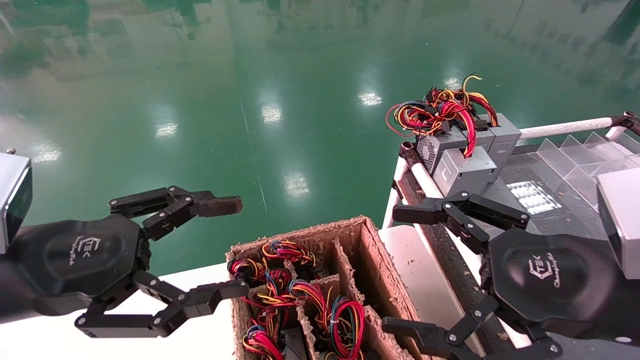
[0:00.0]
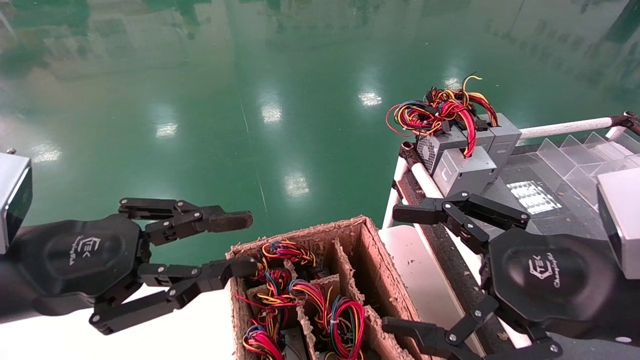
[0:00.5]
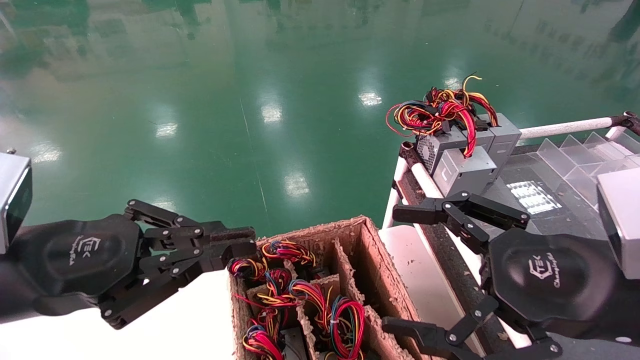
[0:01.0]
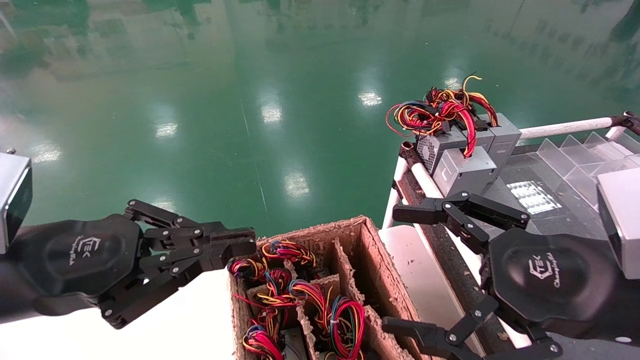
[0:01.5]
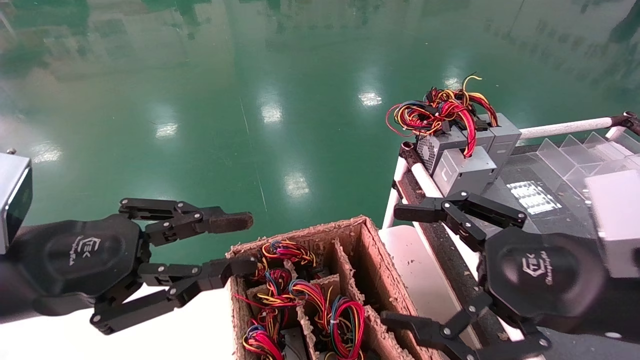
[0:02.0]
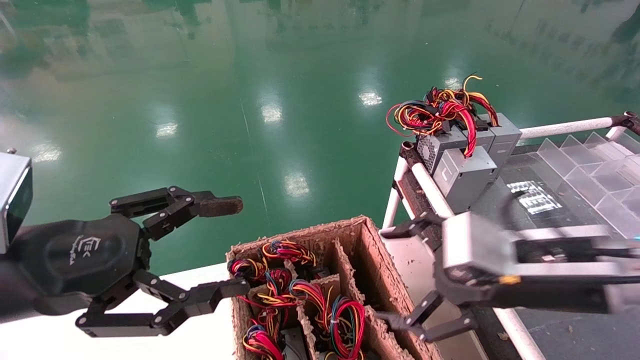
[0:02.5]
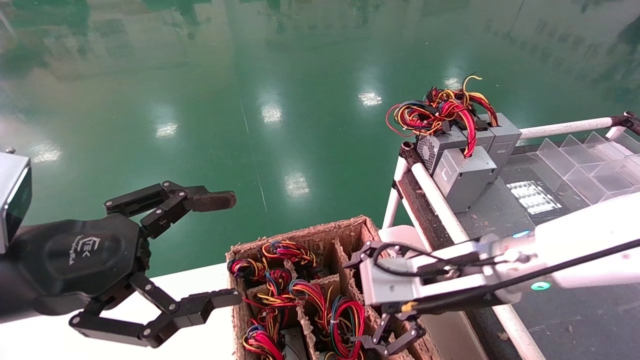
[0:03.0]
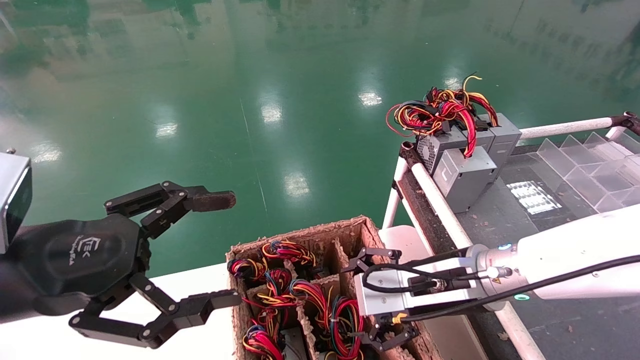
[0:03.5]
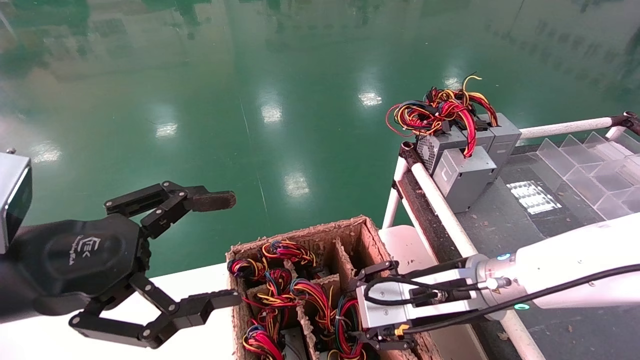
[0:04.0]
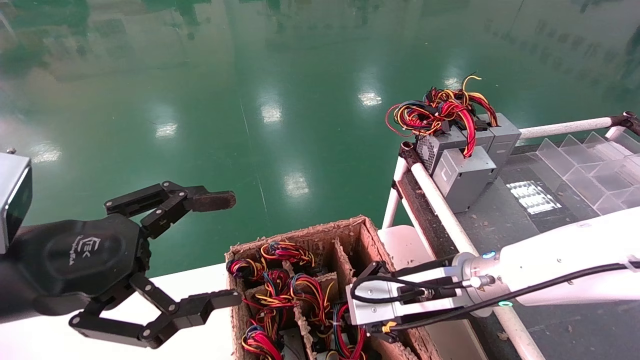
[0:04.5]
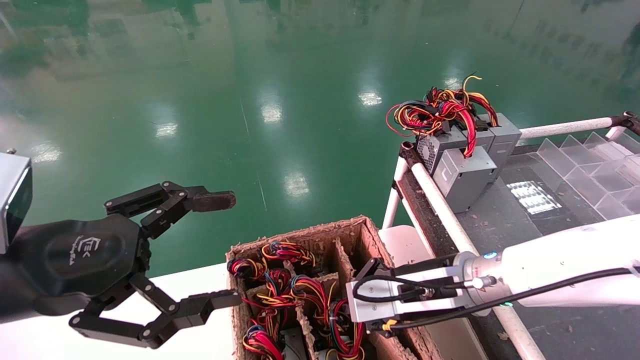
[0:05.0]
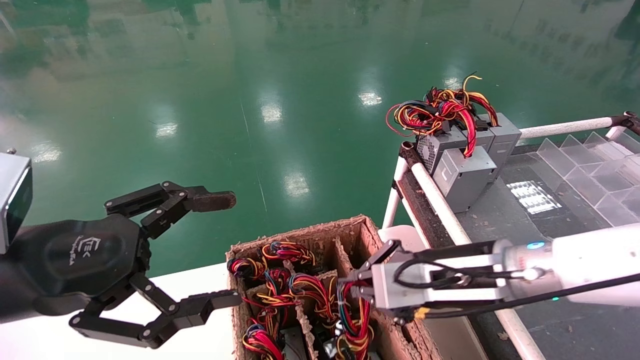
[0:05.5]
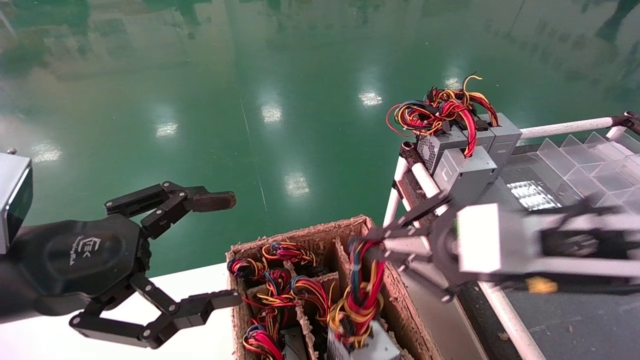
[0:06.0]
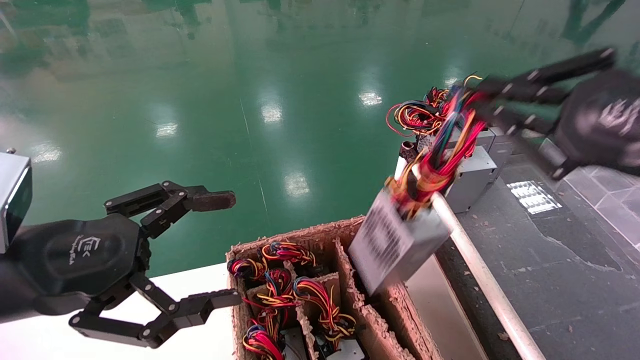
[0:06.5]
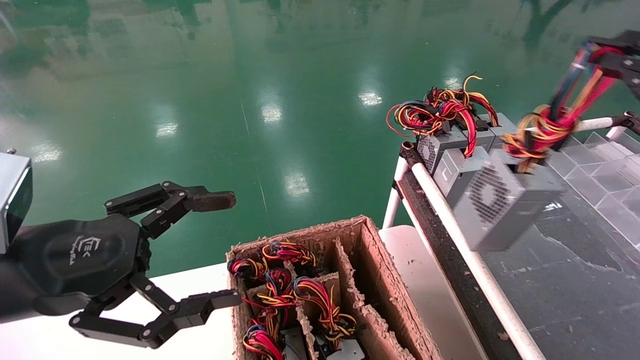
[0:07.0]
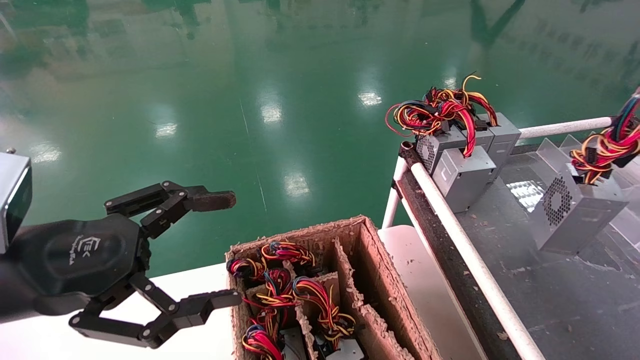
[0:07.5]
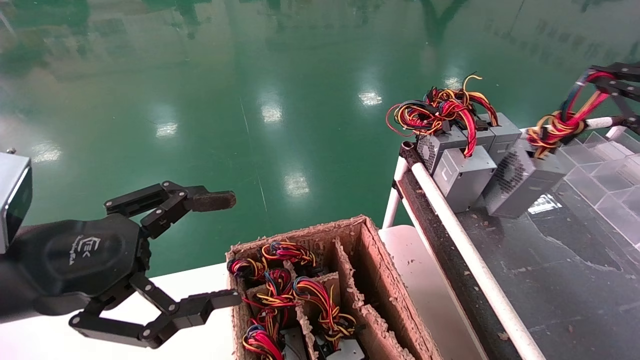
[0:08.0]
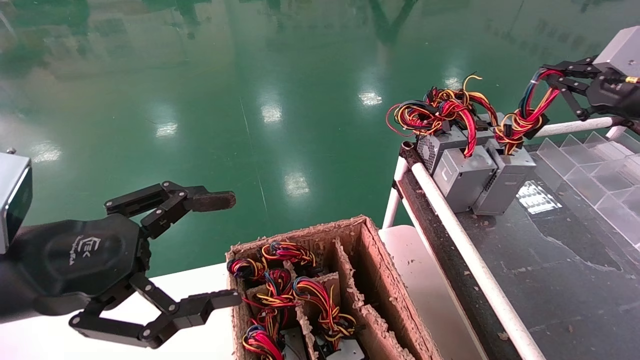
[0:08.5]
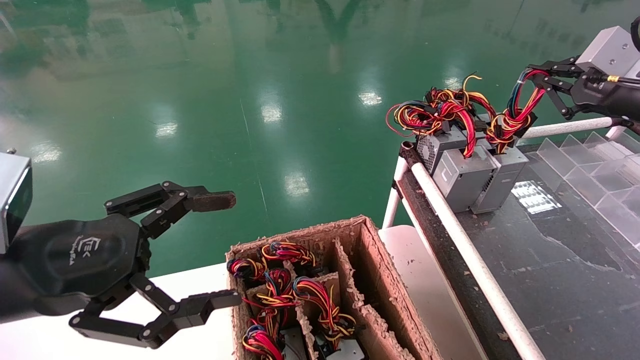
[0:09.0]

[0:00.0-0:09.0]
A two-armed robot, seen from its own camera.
Step, 0:01.5 to 0:05.0: Grab and lift the power supply from the large box.
0:00.0 to 0:02.0: The left gripper closes up.
0:02.0 to 0:04.5: The right gripper heads forward, to the left and downward, covering roughly 20 cm, and closes its fingers, while the left gripper opens its fingers.
0:04.5 to 0:07.0: The right gripper is displaced to the right, upward and backward by some 35 cm.
0:07.0 to 0:09.0: The right gripper goes approximately 20 cm forward.

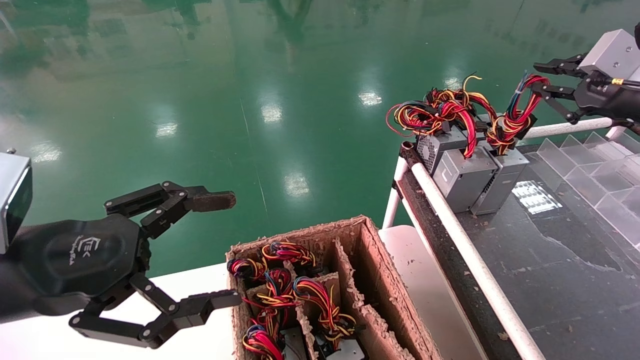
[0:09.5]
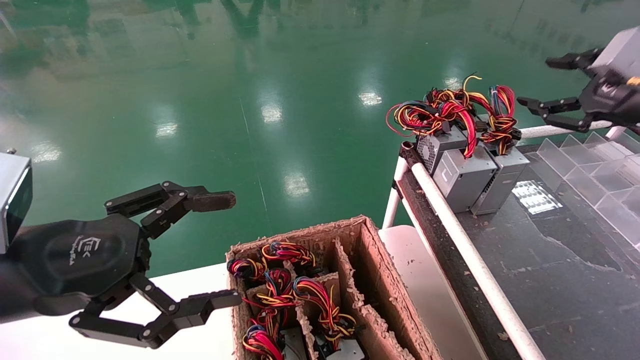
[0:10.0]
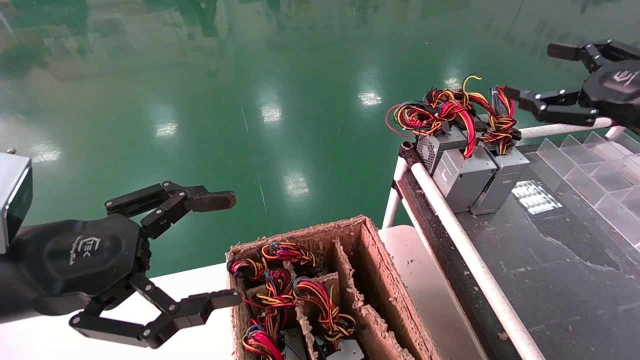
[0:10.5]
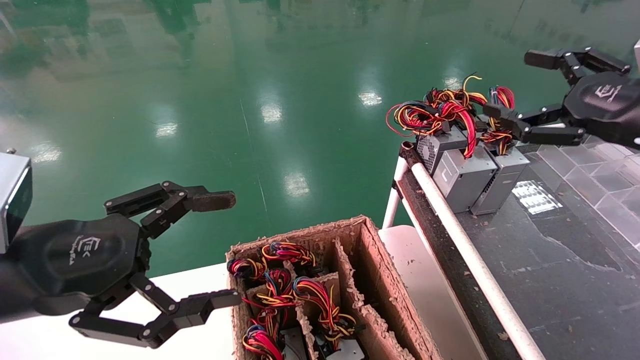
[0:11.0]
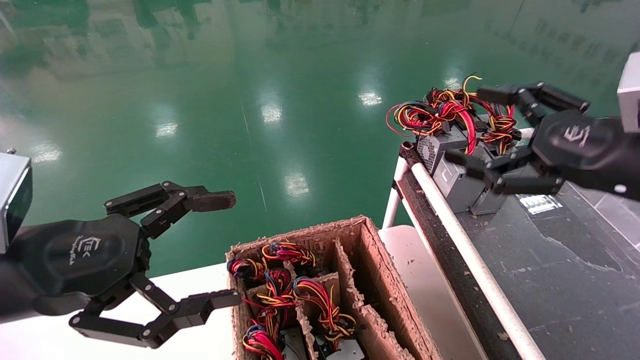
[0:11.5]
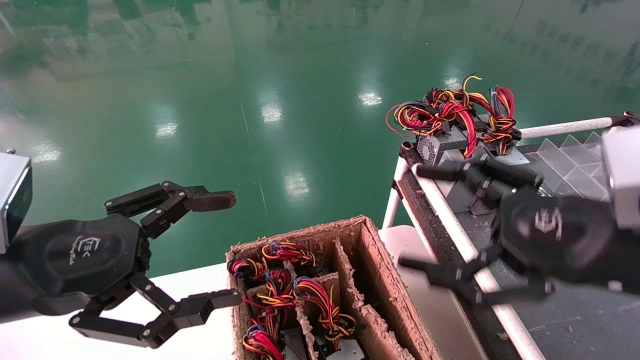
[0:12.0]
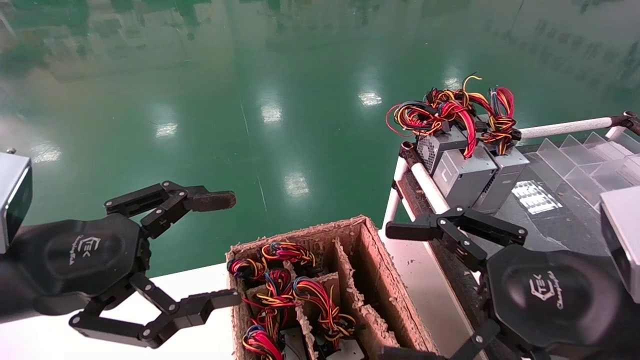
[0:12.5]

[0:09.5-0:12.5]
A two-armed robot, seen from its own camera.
0:09.5 to 0:11.0: The right gripper shifts about 5 cm backward, and opens its fingers.
0:11.0 to 0:12.5: The right gripper shifts some 20 cm backward, to the left and downward.

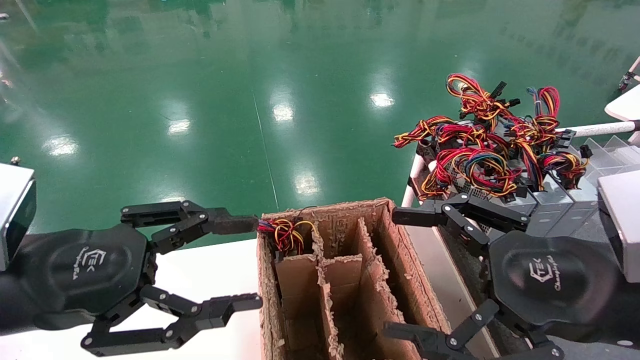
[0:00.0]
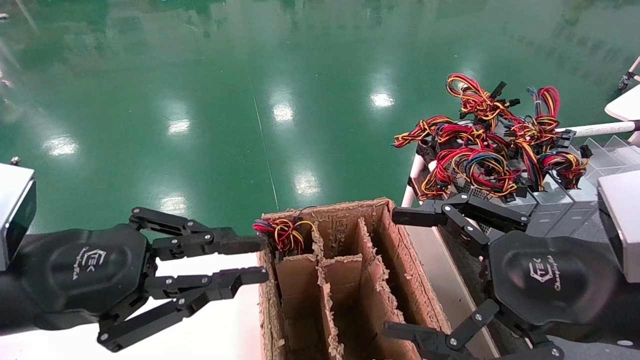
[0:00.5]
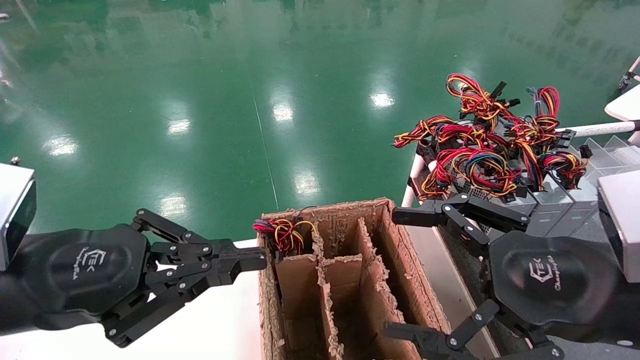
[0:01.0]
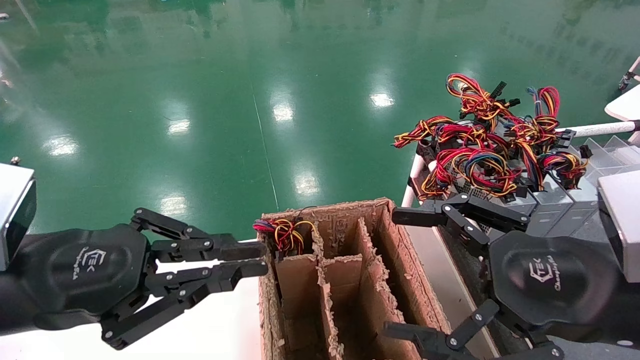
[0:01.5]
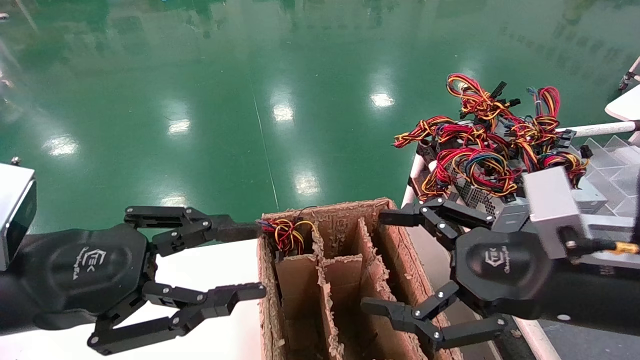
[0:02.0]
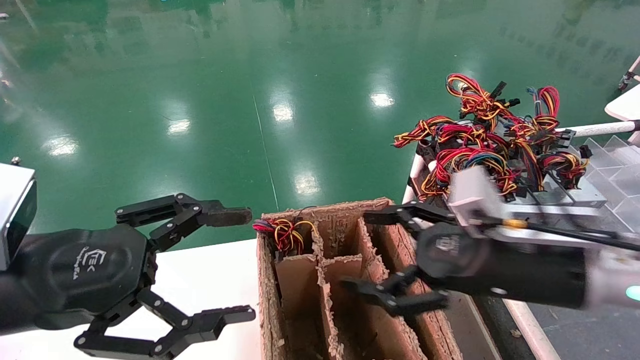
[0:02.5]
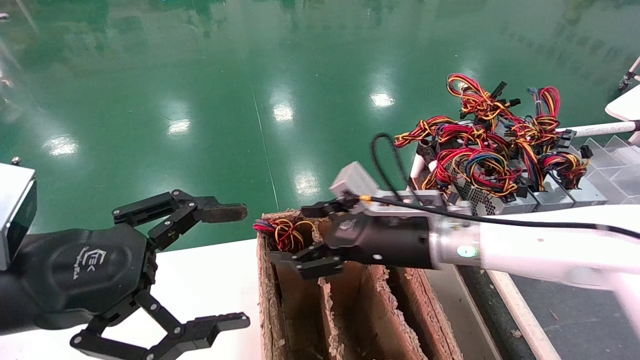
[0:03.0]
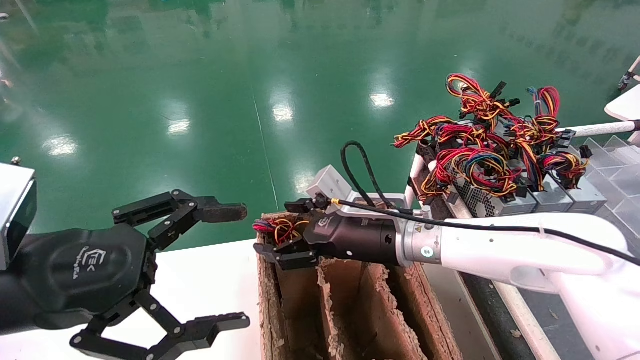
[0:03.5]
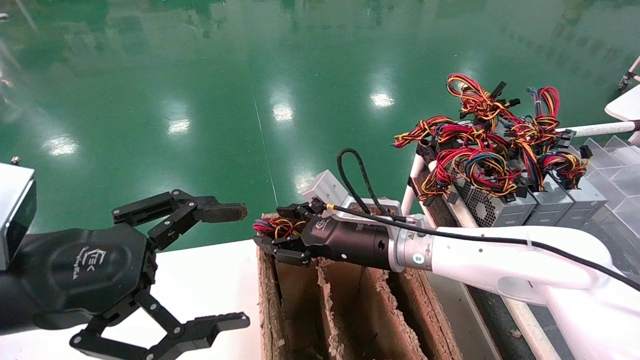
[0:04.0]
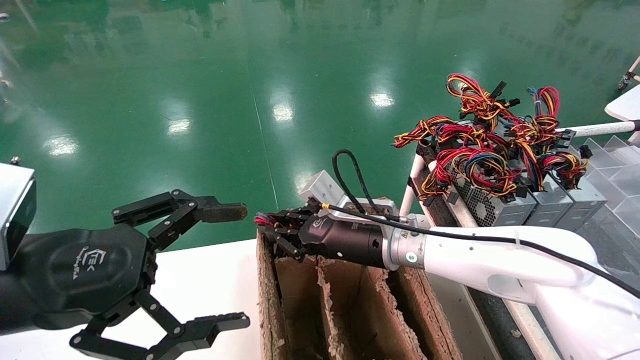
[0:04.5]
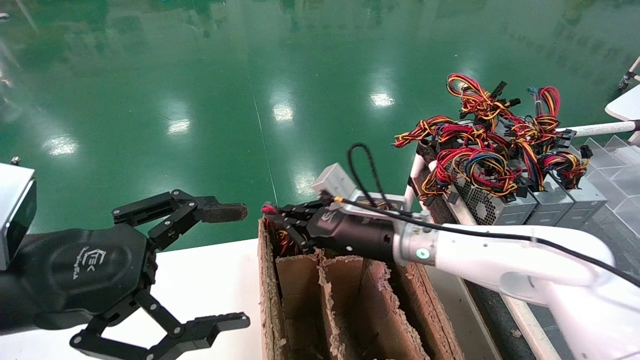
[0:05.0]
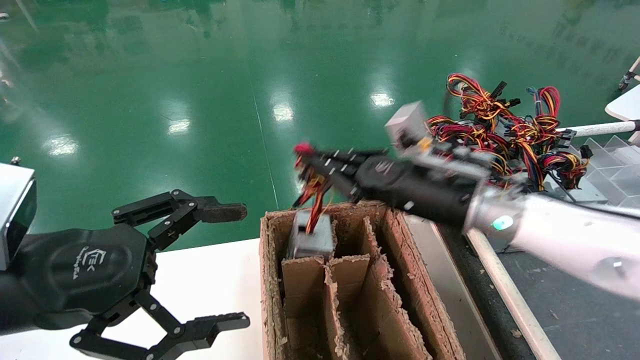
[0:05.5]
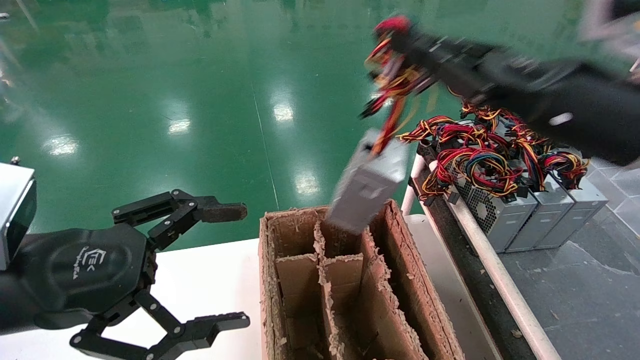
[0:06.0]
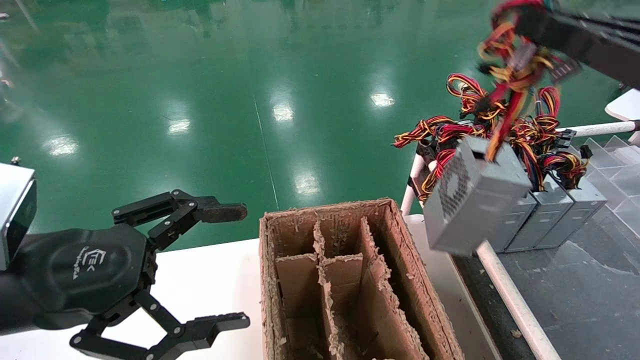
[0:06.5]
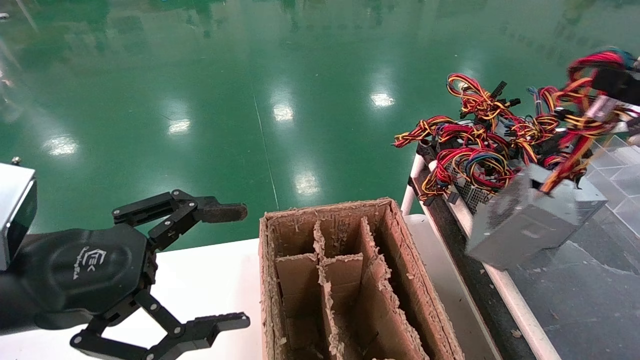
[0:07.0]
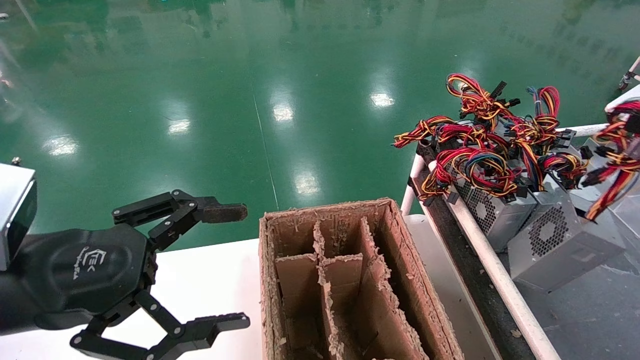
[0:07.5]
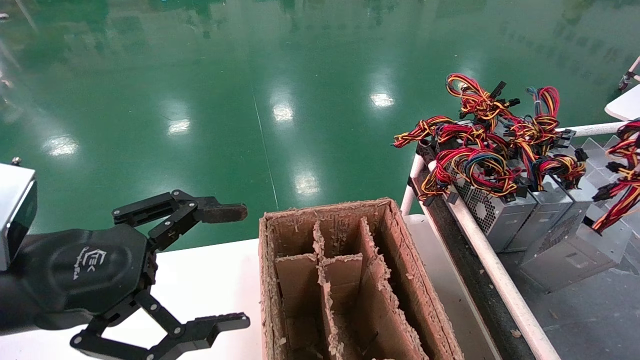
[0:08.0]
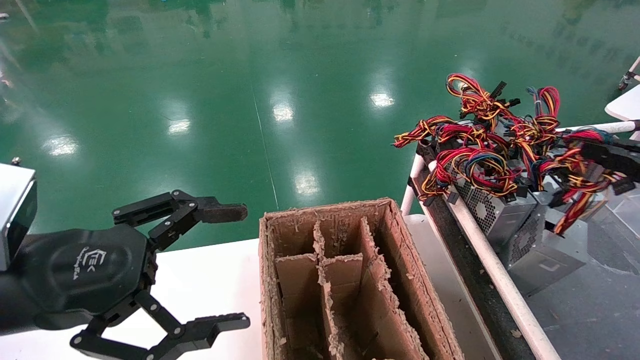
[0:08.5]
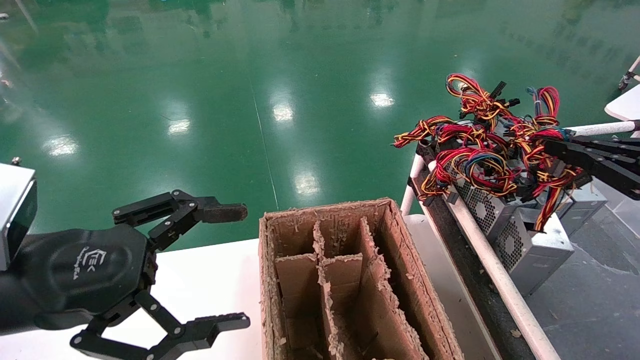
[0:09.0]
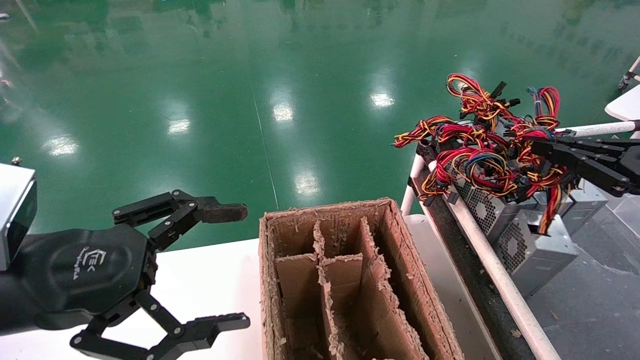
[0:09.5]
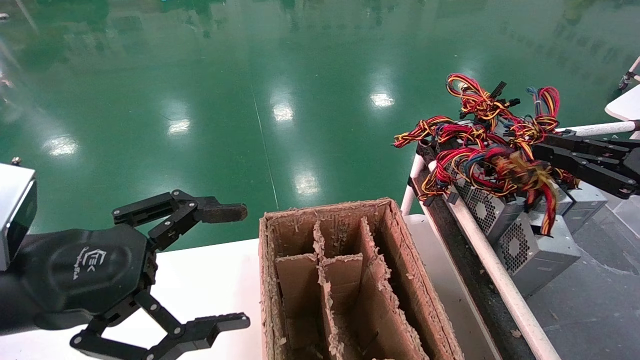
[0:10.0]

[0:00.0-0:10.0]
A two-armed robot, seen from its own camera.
Step, 0:01.0 to 0:04.5: Grab and lift the power supply from the large box.
Step, 0:05.0 to 0:09.5: Place the power supply on the operating table.
0:00.0 to 0:02.0: There are only small adjustments of the grippers.
0:02.0 to 0:04.0: The right gripper heads forward and to the left, covering about 25 cm. The left gripper opens its fingers.
0:04.0 to 0:06.0: The right gripper shifts some 25 cm to the right, upward and backward, and closes its fingers.
0:06.0 to 0:08.0: The right gripper is displaced to the right by some 25 cm.
0:08.0 to 0:10.0: The right gripper travels forward and to the left by some 10 cm.
